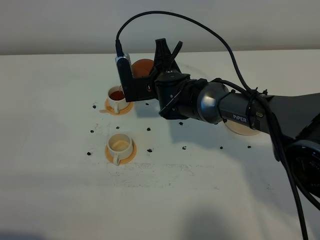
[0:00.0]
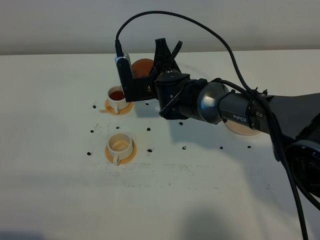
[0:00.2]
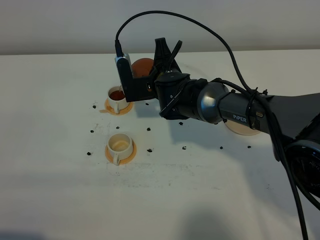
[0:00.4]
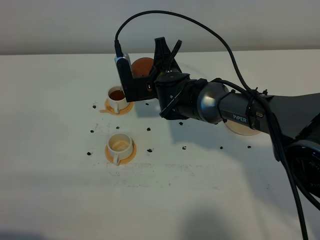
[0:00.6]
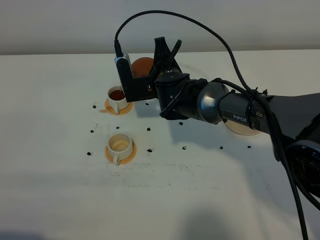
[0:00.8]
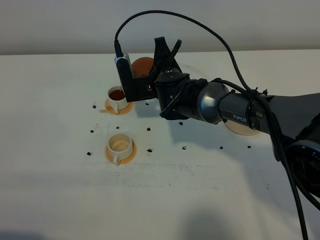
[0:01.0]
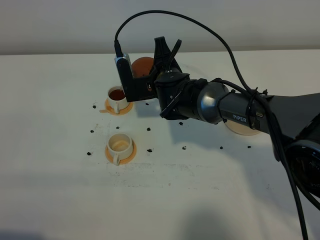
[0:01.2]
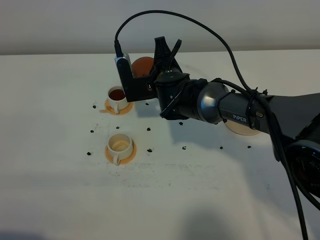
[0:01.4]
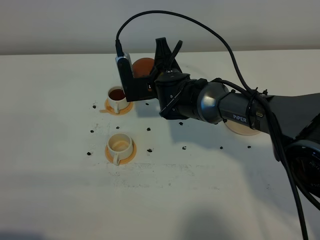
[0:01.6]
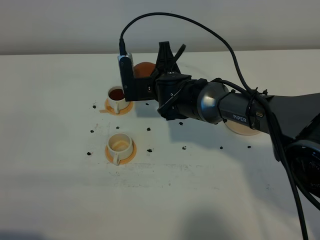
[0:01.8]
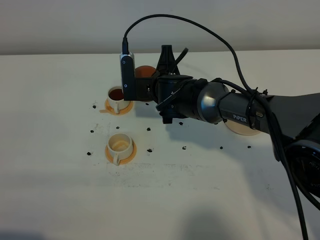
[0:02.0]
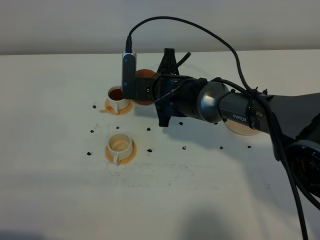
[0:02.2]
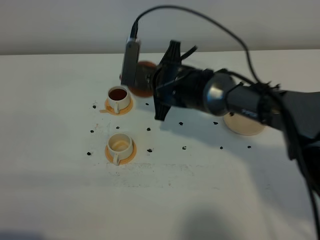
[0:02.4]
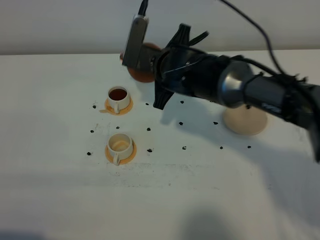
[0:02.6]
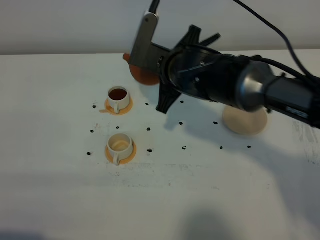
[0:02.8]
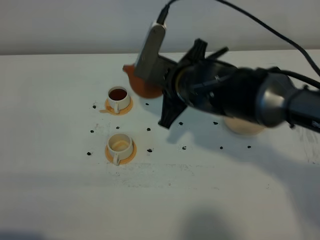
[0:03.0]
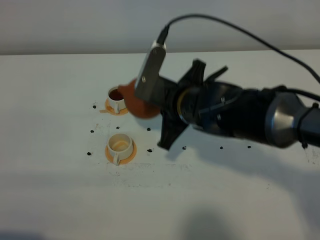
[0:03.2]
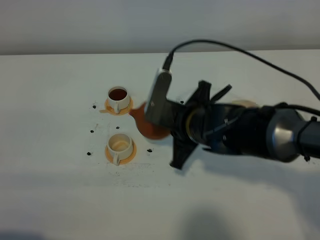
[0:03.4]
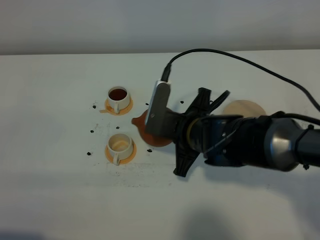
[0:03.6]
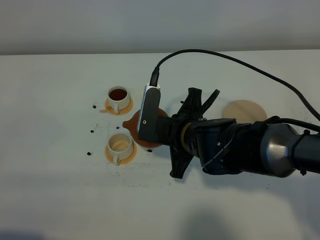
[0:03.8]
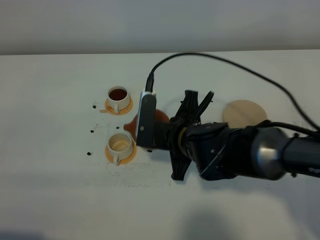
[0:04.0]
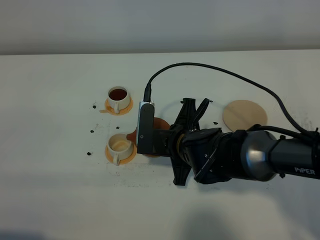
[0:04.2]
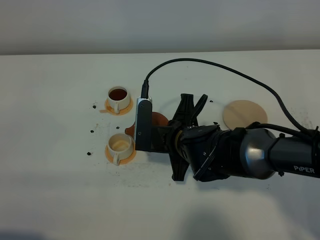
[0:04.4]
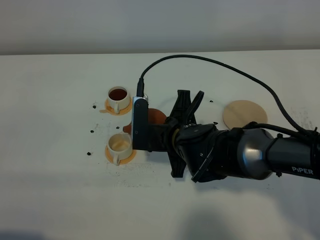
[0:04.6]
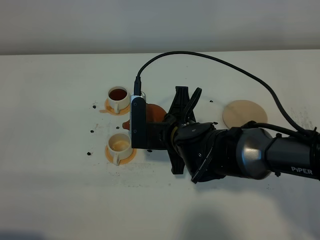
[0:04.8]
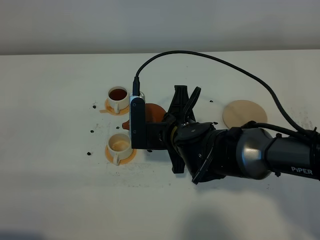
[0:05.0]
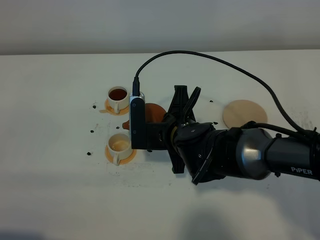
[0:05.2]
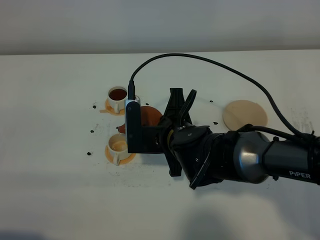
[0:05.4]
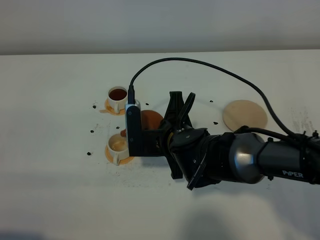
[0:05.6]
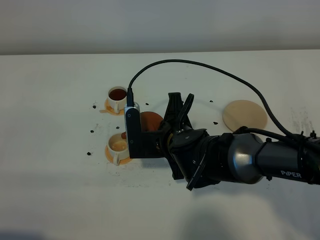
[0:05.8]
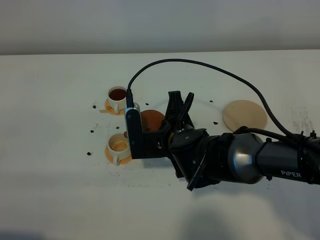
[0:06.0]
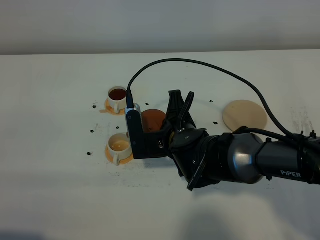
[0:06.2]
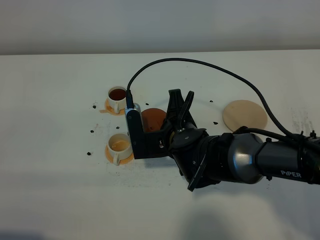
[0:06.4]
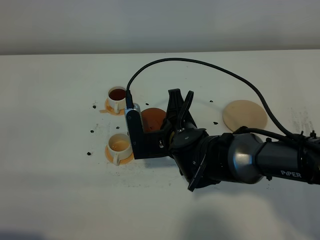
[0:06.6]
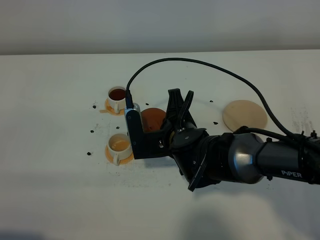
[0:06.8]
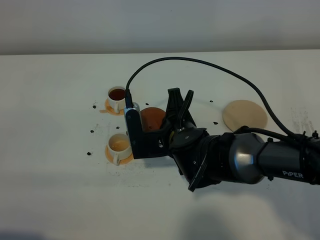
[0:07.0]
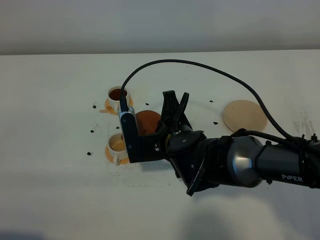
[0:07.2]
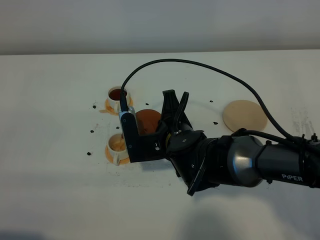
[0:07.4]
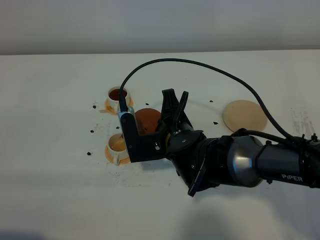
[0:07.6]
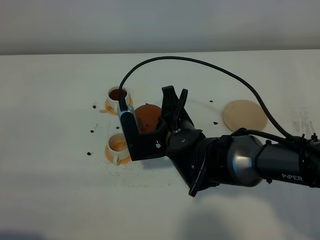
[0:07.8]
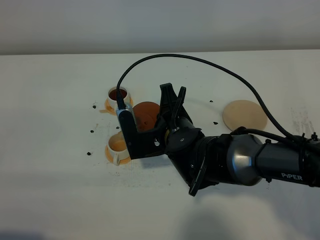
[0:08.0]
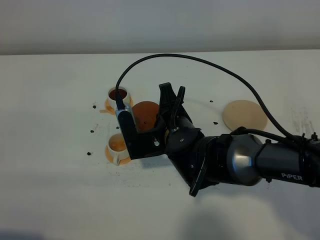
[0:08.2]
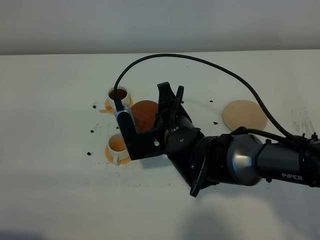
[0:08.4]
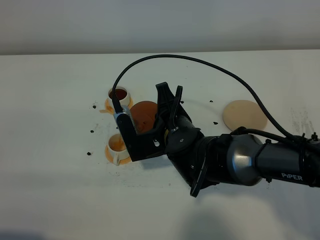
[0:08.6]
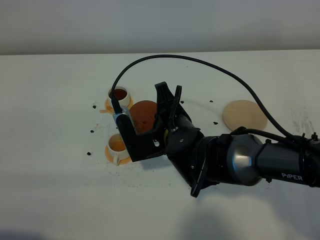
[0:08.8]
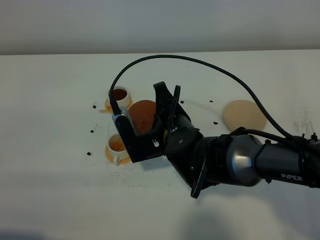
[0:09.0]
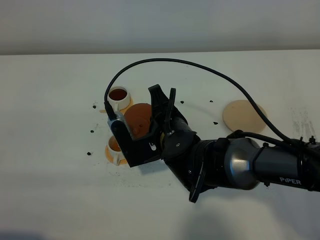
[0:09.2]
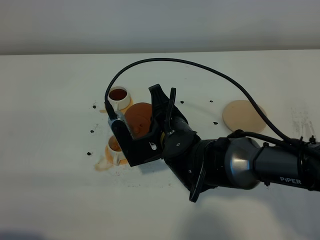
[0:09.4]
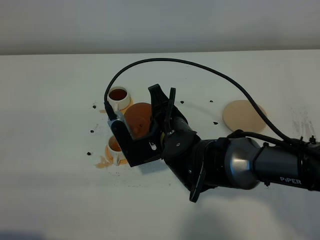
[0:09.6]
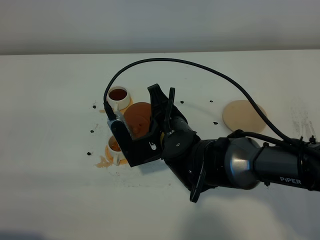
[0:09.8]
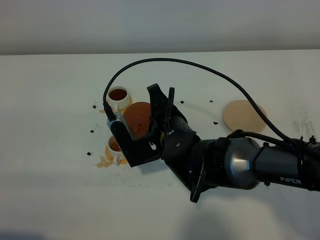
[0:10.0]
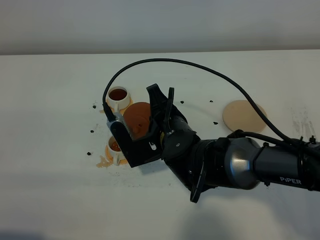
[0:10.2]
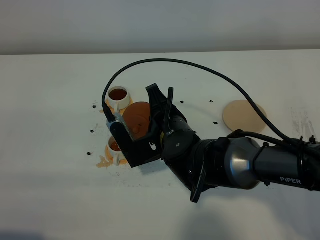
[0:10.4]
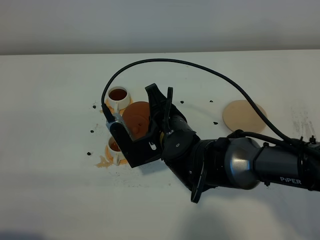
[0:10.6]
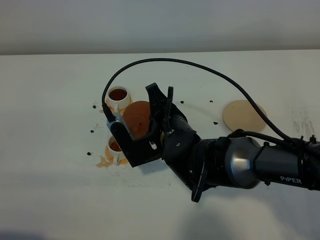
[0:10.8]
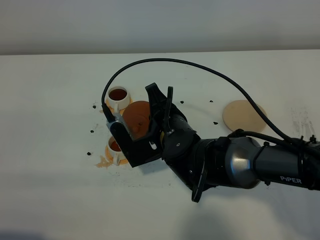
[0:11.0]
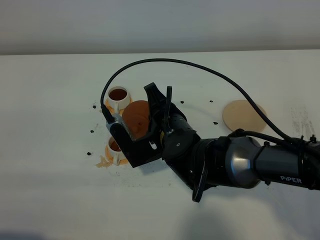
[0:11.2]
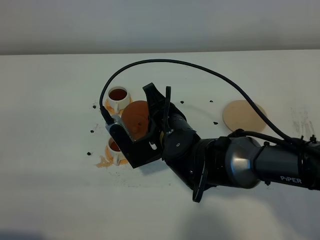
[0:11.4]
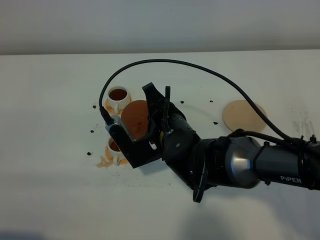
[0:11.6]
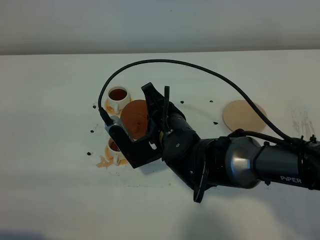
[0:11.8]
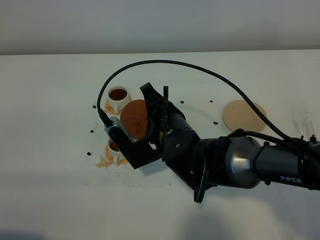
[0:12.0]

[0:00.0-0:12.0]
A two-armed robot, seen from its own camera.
Task of the whole recording: grasp the brown teapot and pour the tea into the two white teacups one by one, put the brown teapot back in its original place.
0:00.0 to 0:01.6: The two grippers keep their place.
0:01.6 to 0:03.0: The right gripper is displaced backward and upward by approximately 10 cm.
0:03.0 to 0:04.4: The right gripper goes approximately 10 cm downward.
0:04.4 to 0:07.6: There are only small adjustments of the grippers.
0:07.6 to 0:09.0: There are only small adjustments of the grippers.
0:09.0 to 0:10.4: Neither gripper changes place.
0:10.4 to 0:12.0: The grippers make only small movements.

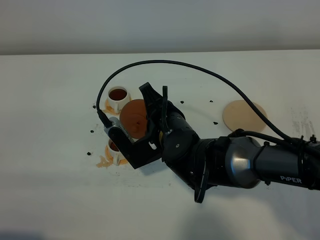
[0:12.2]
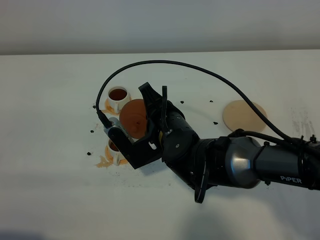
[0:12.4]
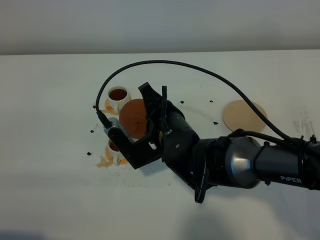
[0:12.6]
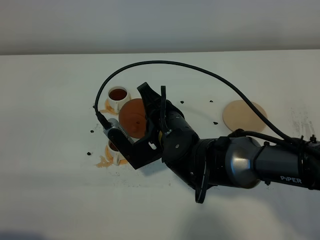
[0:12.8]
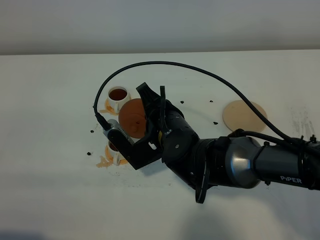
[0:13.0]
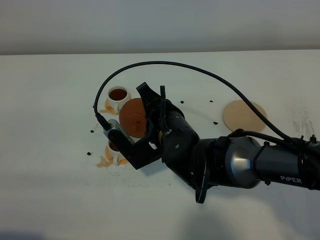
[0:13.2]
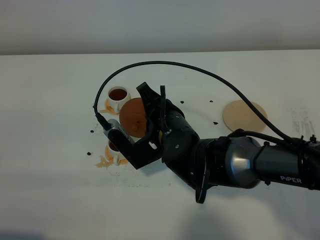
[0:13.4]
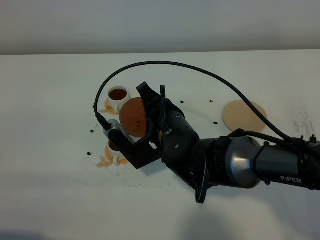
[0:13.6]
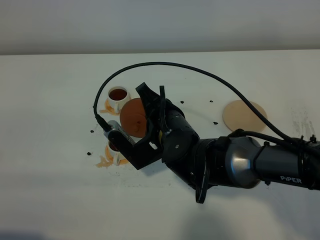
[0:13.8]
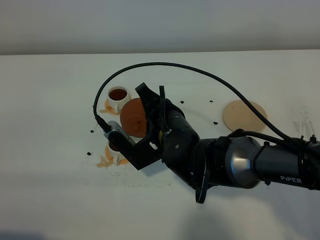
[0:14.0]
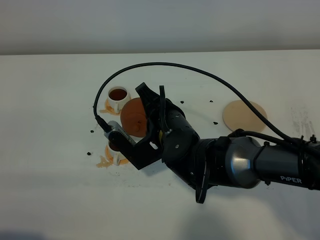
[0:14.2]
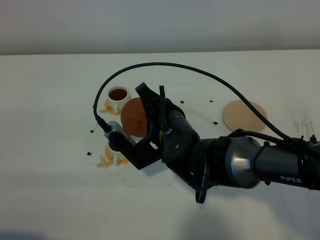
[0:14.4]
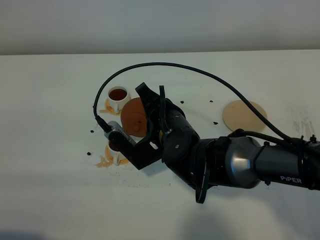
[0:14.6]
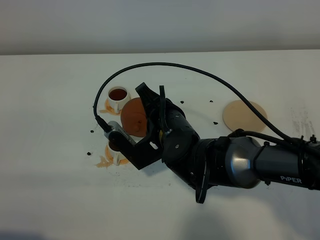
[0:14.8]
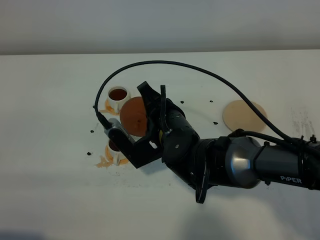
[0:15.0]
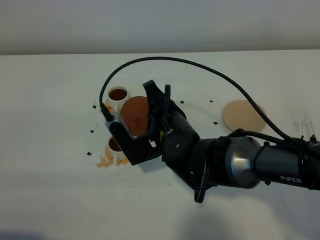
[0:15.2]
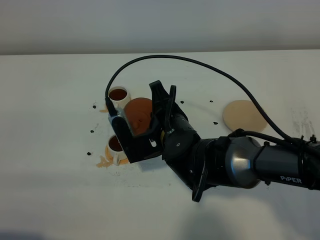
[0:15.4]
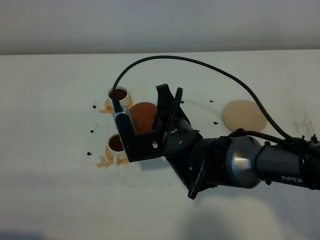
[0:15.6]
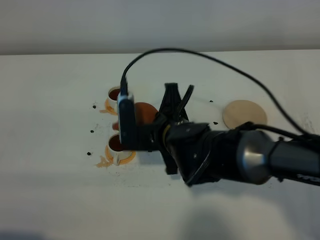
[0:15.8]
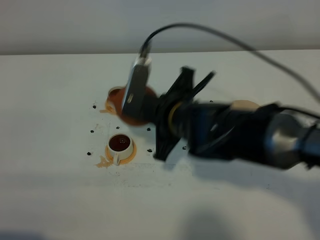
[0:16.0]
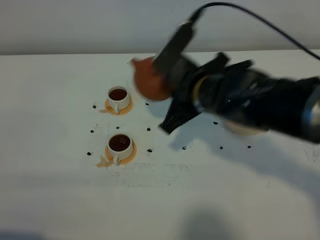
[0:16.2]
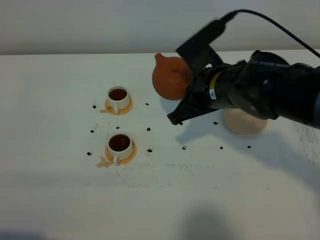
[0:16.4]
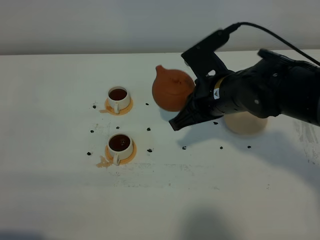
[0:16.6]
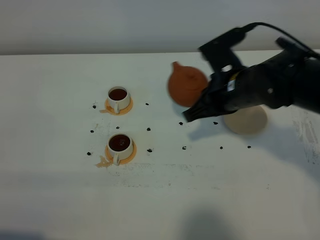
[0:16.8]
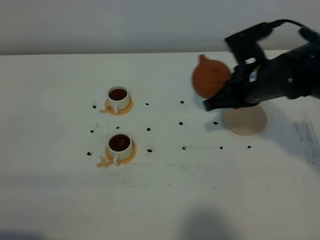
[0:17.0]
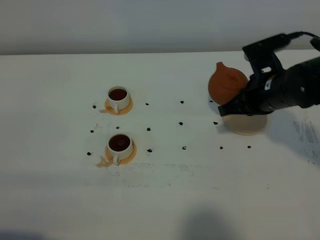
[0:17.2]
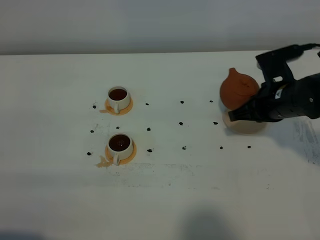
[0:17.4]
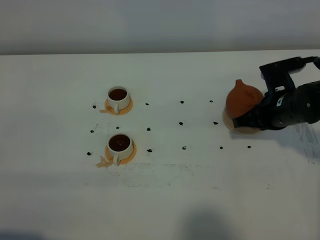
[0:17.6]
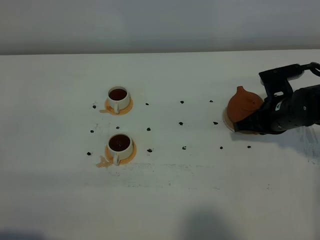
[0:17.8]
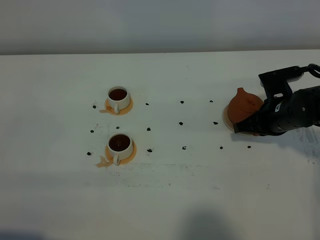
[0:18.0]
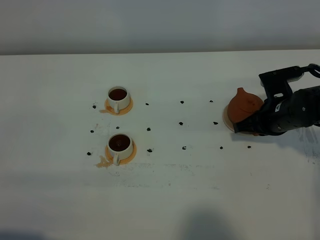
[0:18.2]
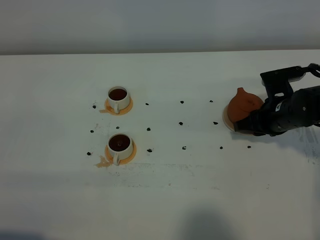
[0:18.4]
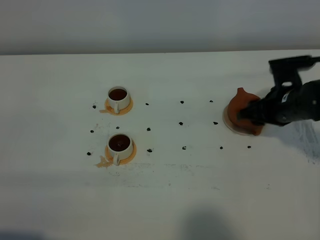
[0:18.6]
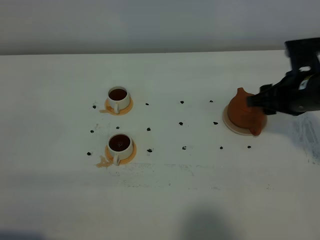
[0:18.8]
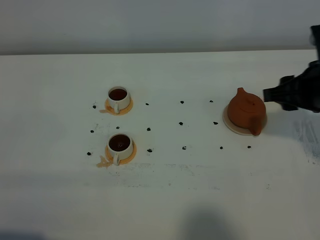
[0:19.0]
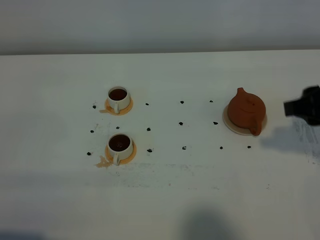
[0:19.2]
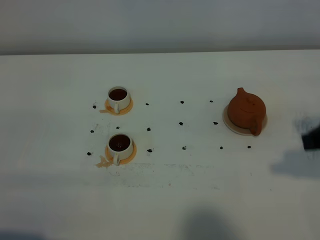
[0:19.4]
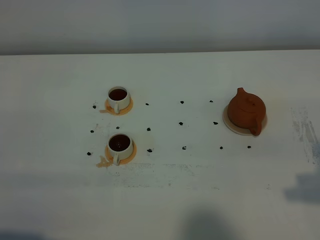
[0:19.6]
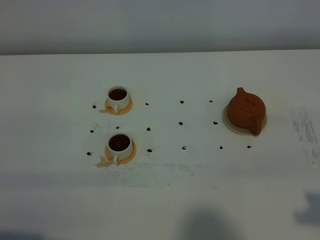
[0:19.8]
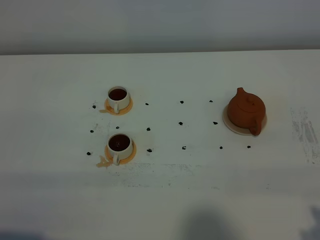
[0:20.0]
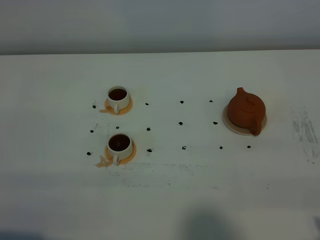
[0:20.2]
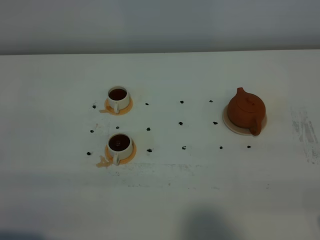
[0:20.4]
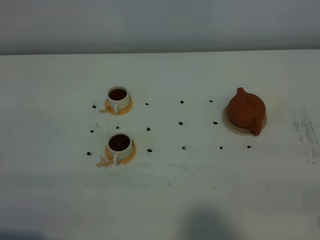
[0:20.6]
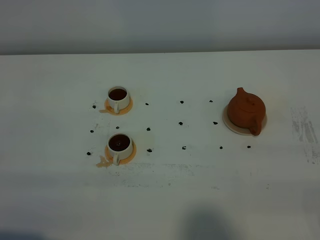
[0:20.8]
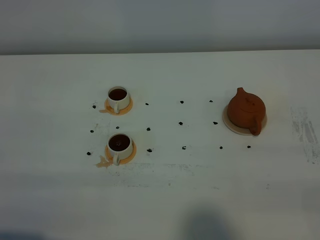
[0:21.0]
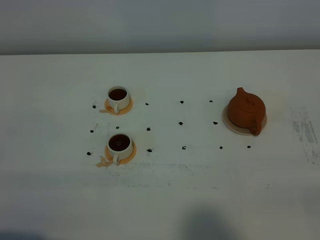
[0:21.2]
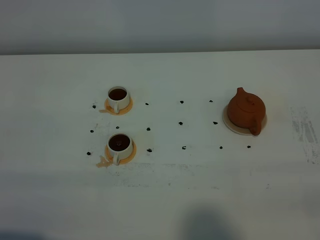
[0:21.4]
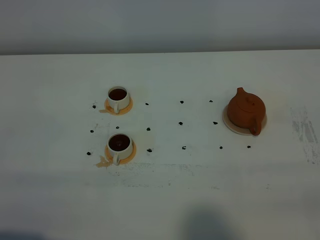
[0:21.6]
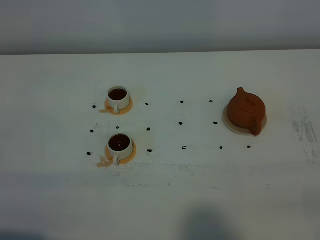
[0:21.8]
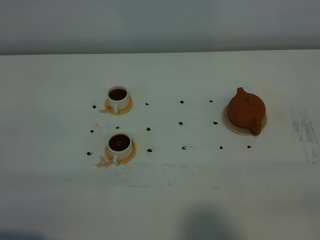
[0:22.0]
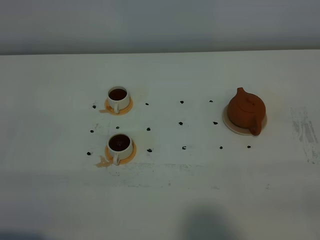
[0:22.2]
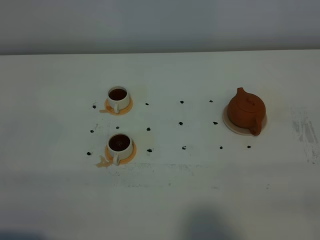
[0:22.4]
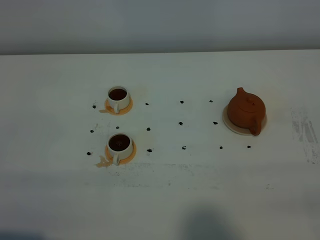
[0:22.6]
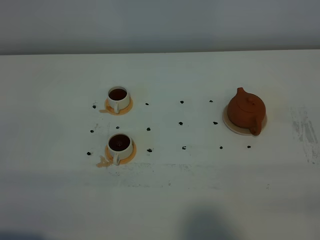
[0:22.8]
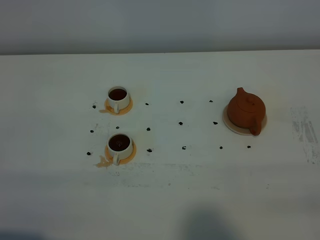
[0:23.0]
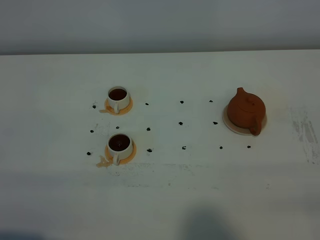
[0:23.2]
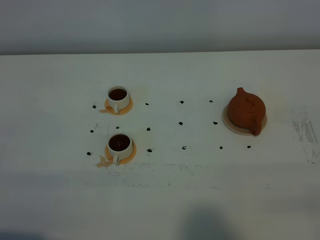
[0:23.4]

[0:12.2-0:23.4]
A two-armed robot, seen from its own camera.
Task of the whole recording: grasp the brown teapot and pour the tea into the two white teacups one by one, put the brown teapot back in its original place.
Step, 0:12.2 to 0:15.6: Pour tea into the teacup with the right gripper.
0:12.2 to 0:15.4: There are only small adjustments of the grippers.
0:15.4 to 0:17.0: The right gripper heads to the right, forward and upward, covering some 15 cm.
0:17.0 to 0:18.6: The right gripper is displaced to the right by about 5 cm, and opens up.
0:18.6 to 0:20.2: The right gripper goes roughly 30 cm backward.
0:21.8 to 0:23.4: Neither gripper changes place.
